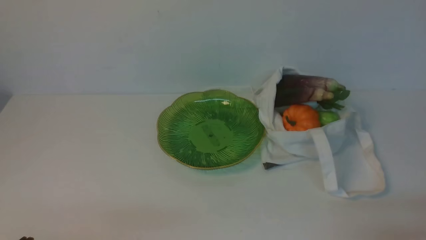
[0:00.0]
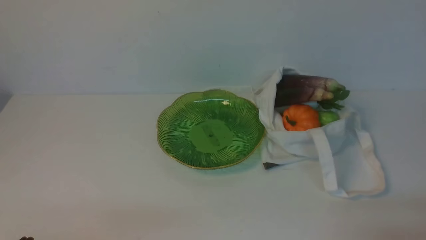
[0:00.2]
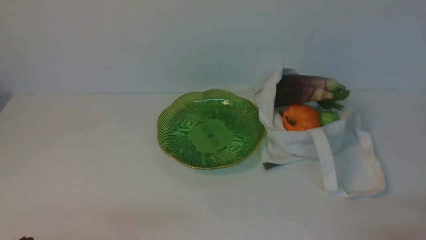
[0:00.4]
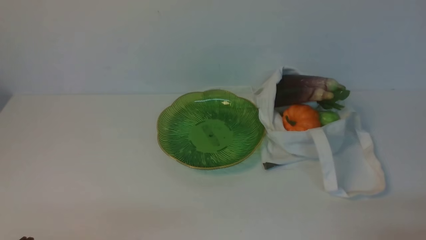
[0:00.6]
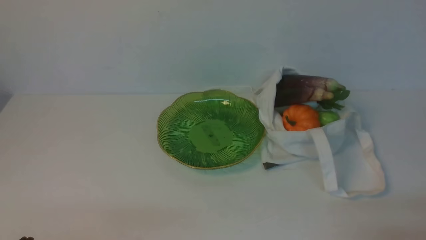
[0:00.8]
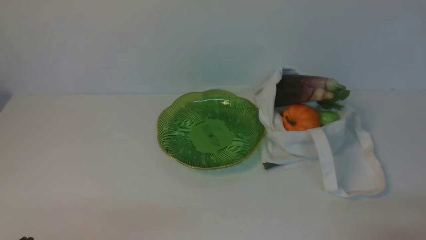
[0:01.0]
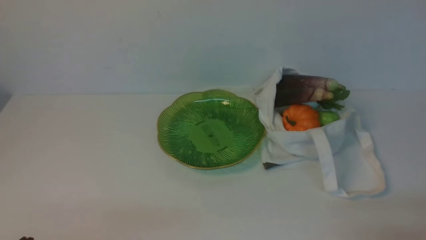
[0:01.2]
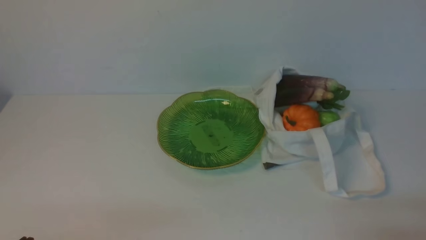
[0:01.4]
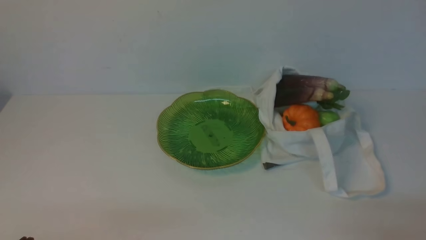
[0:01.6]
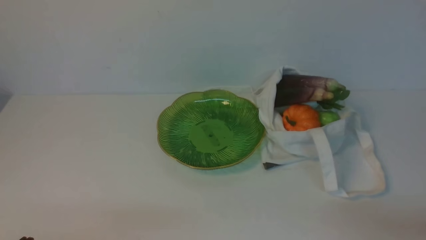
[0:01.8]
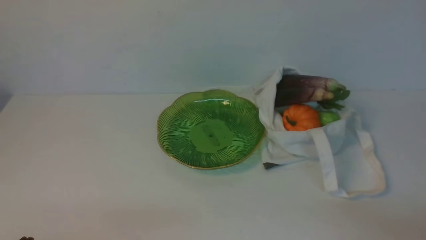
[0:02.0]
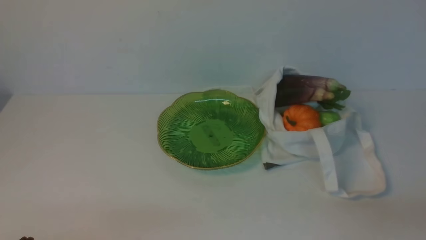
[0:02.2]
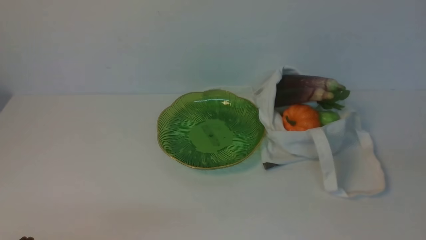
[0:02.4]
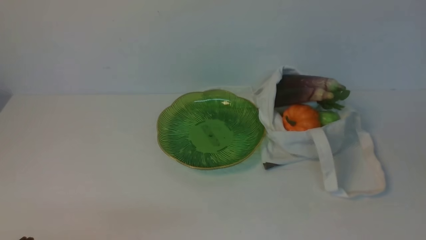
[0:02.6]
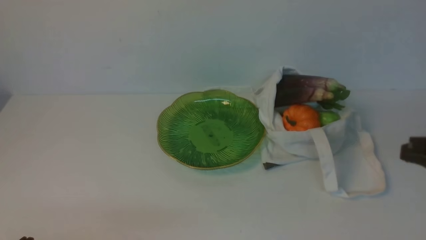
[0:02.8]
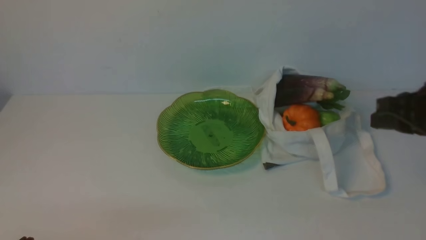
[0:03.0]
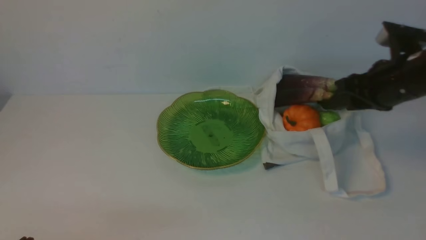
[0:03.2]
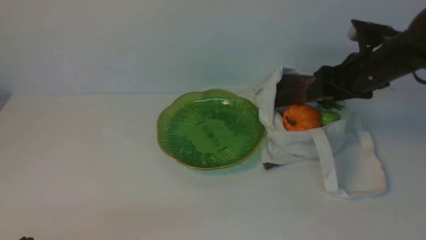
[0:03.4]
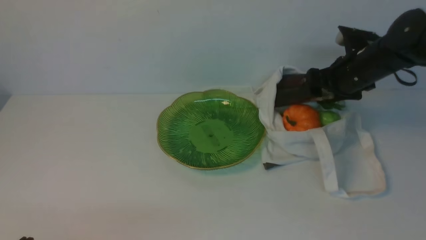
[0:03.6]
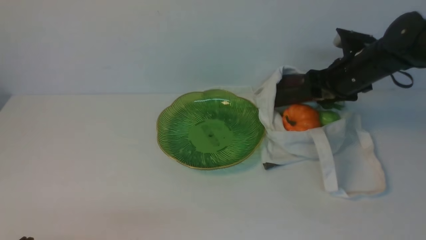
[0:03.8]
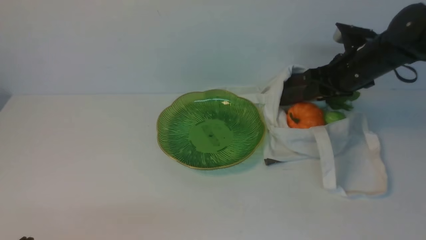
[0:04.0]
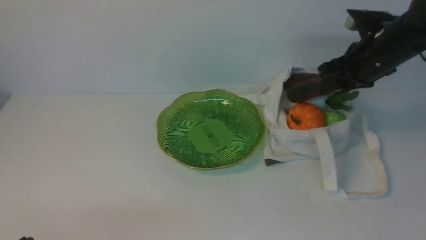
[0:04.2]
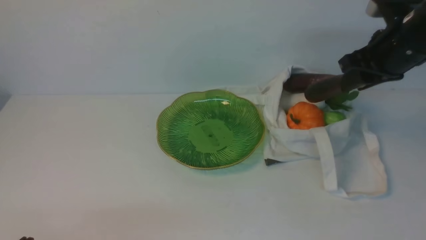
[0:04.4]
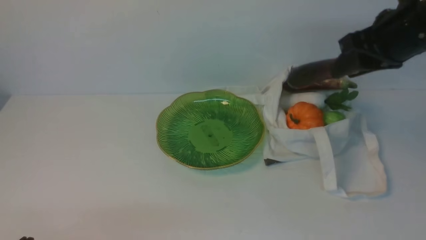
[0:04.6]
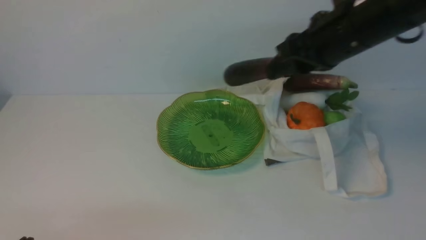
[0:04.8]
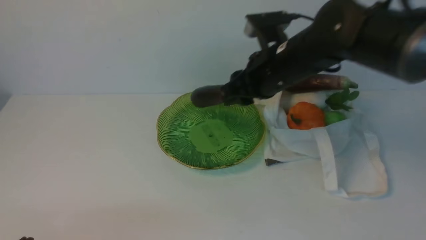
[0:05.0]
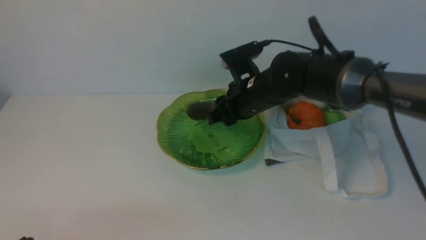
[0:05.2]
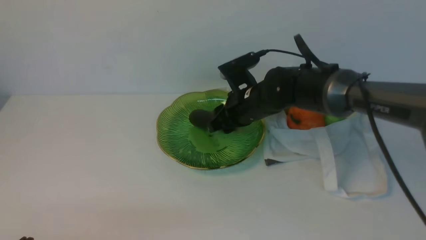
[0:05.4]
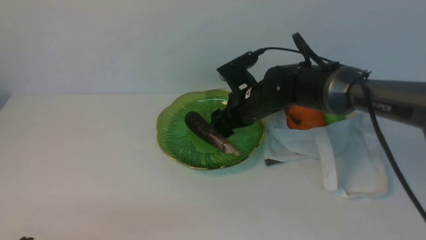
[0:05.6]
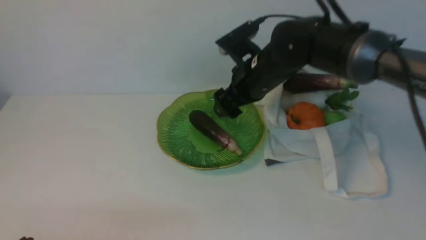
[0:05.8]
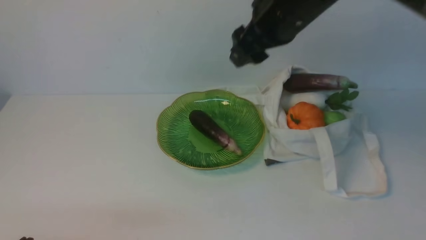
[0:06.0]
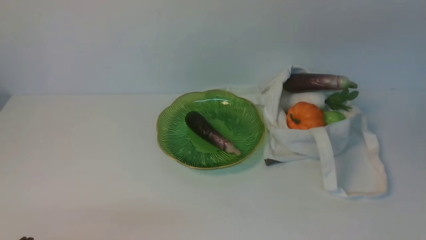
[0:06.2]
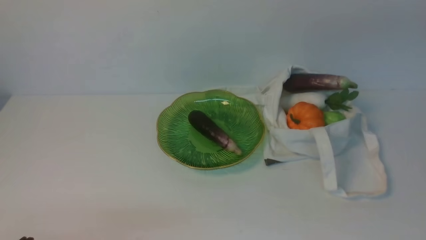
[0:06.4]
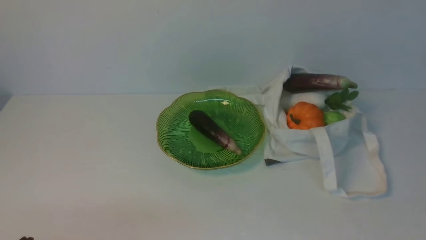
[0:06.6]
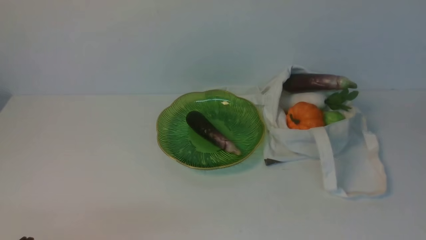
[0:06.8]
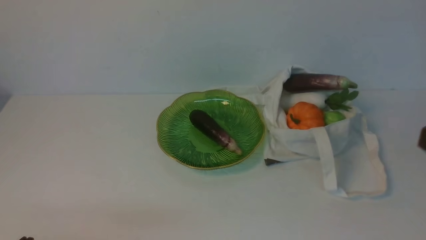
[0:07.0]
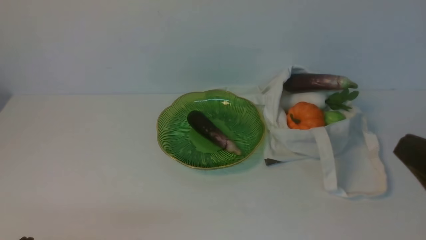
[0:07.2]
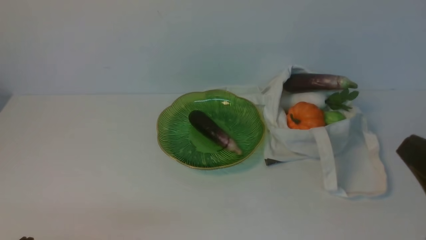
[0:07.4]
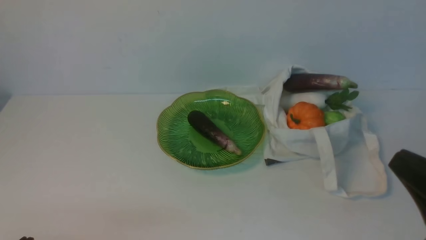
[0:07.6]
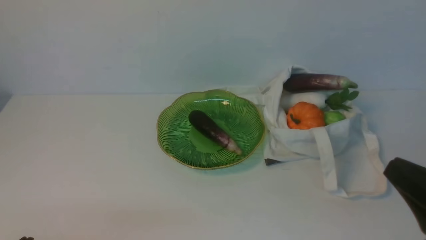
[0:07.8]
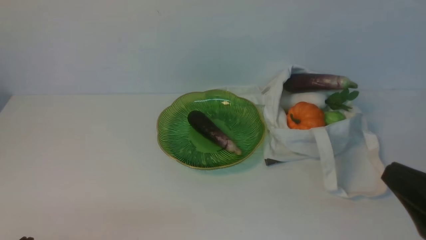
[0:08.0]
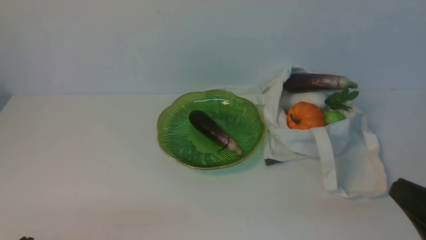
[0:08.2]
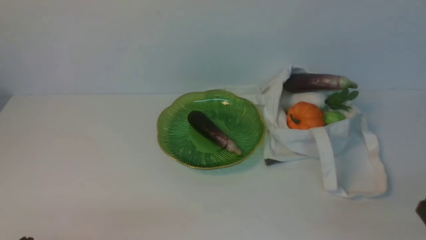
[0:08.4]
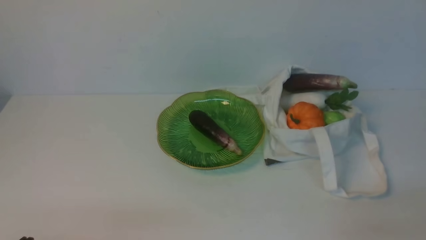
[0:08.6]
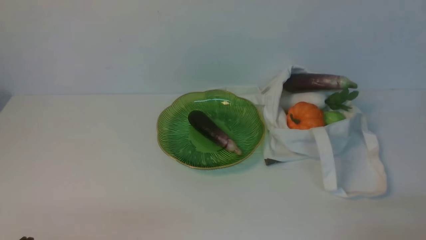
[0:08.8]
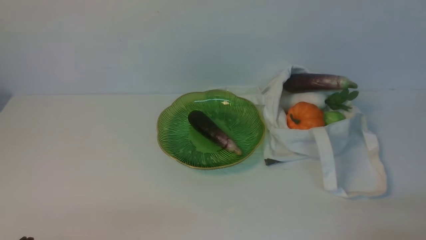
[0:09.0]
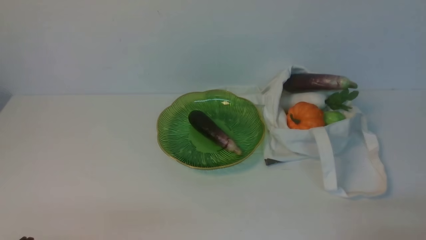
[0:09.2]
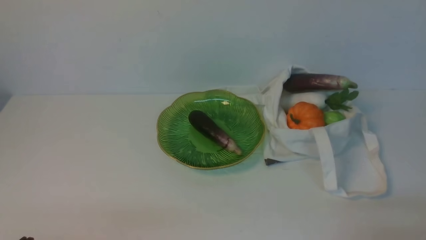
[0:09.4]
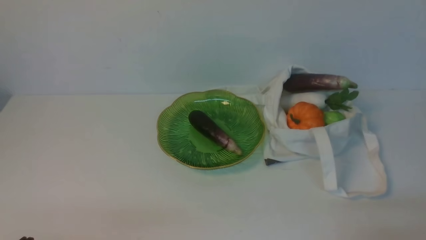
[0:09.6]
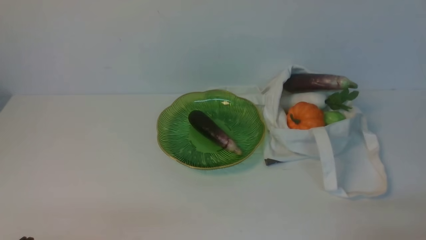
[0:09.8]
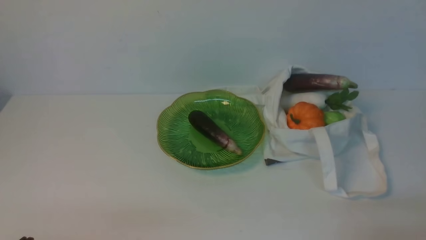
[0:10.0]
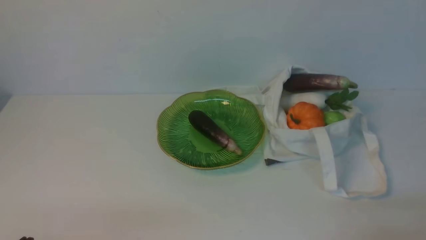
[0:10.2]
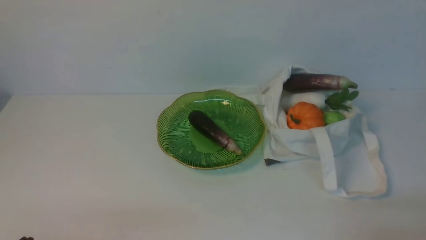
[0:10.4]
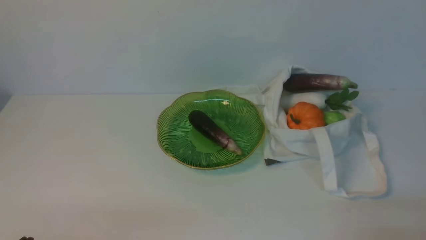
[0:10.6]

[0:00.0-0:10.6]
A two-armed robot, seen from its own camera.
Task of the whole recording: take vegetables from cloth bag on white table place on plate.
Step, 0.0 to 3.8 s: Grasp the eggplant with right gripper.
Step, 4.0 to 5.6 s: Place the eggplant on the plate with right gripper.
1.6 to 3.0 s: The right gripper travels forward and upward by some 25 cm.
3.0 to 4.6 s: The right gripper shifts some 10 cm forward and to the left, and opens, then closes once more.
4.6 to 6.0 s: The right gripper is displaced to the left by about 10 cm, and reaches some 15 cm downward, then returns.
6.0 to 7.6 s: The right gripper is displaced backward, to the right and downward by about 30 cm, and closes up.
7.6 to 9.0 s: The right gripper moves downward, some 10 cm.
9.0 to 10.6 s: The two grippers keep their place.

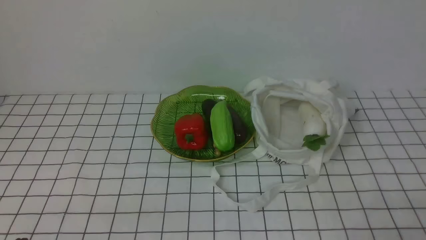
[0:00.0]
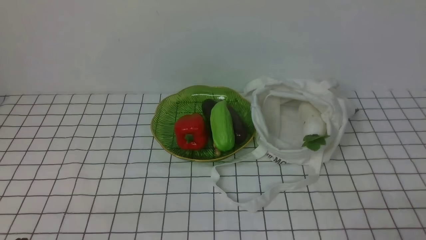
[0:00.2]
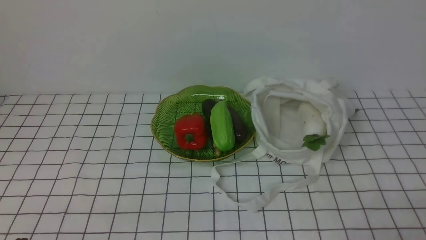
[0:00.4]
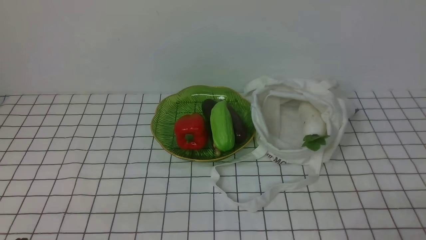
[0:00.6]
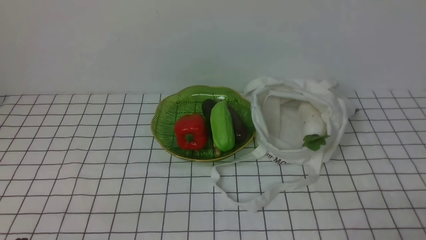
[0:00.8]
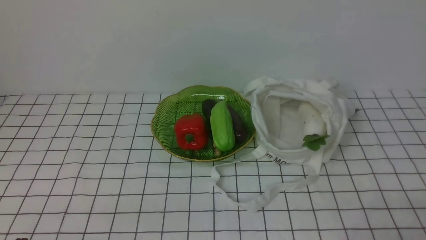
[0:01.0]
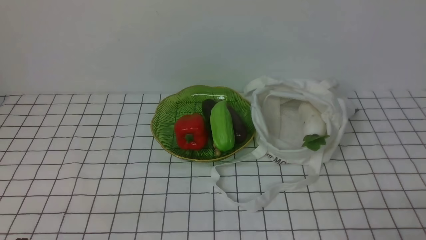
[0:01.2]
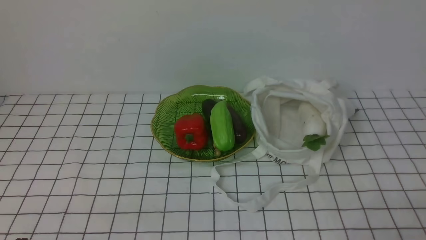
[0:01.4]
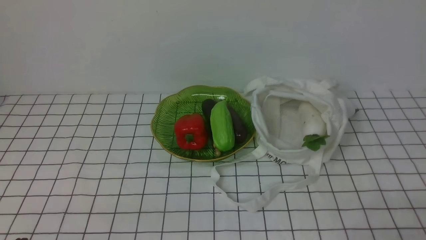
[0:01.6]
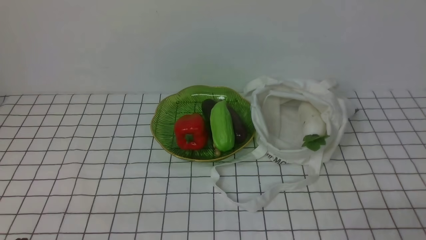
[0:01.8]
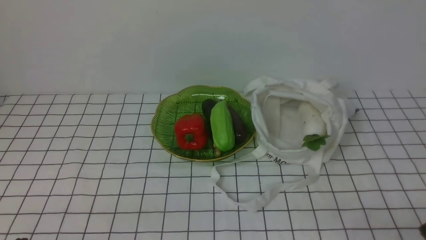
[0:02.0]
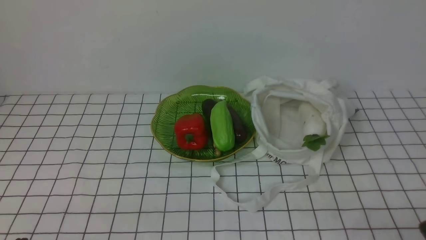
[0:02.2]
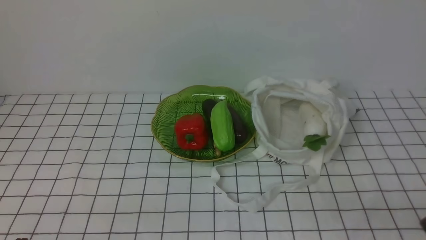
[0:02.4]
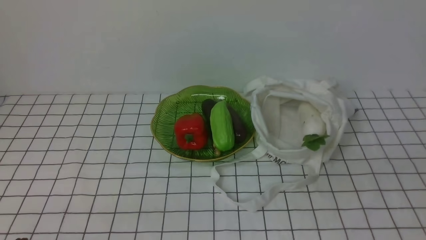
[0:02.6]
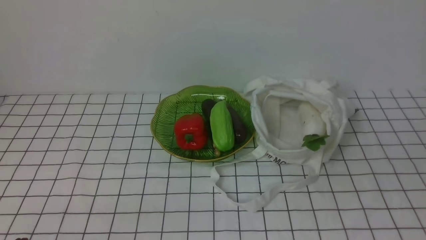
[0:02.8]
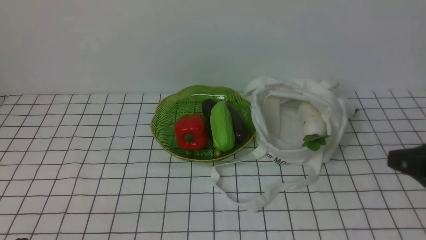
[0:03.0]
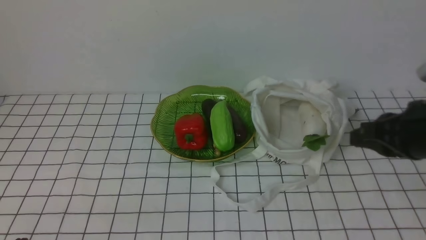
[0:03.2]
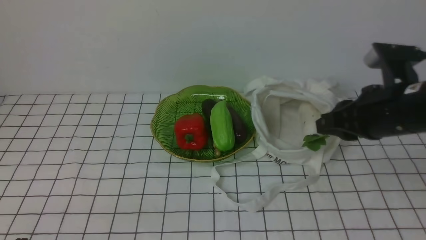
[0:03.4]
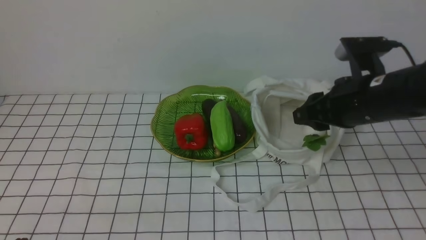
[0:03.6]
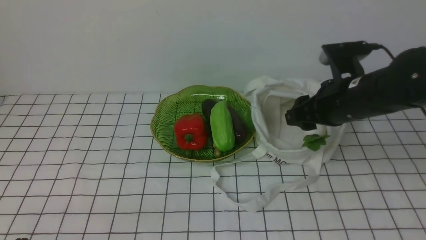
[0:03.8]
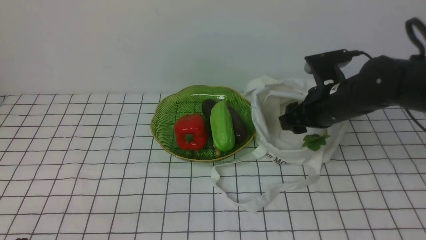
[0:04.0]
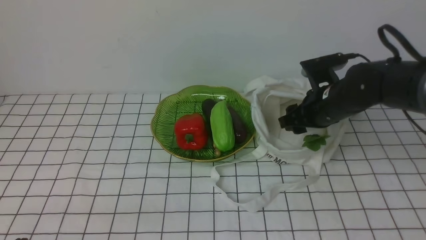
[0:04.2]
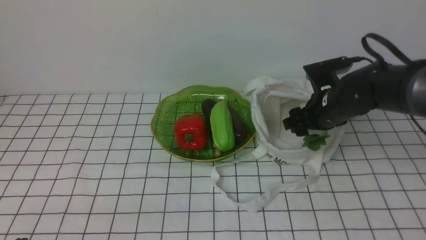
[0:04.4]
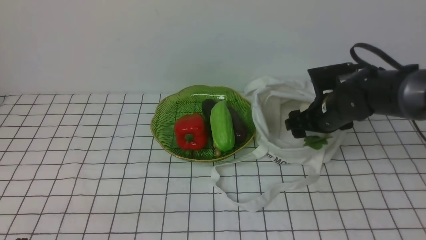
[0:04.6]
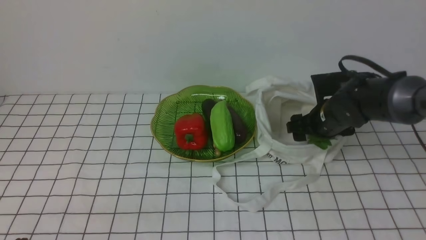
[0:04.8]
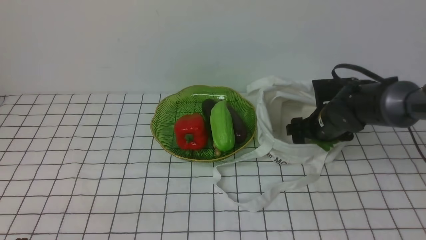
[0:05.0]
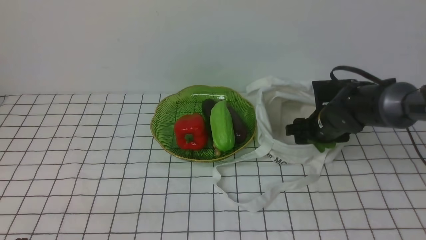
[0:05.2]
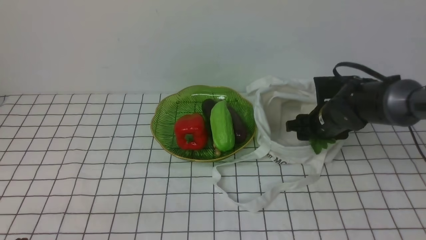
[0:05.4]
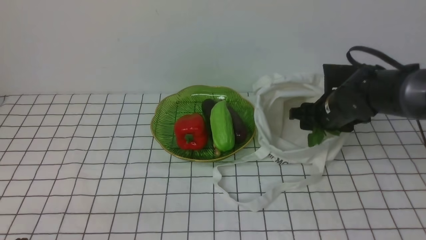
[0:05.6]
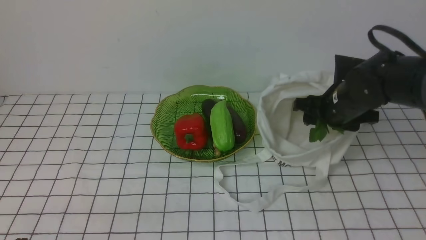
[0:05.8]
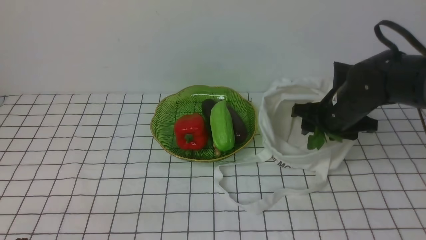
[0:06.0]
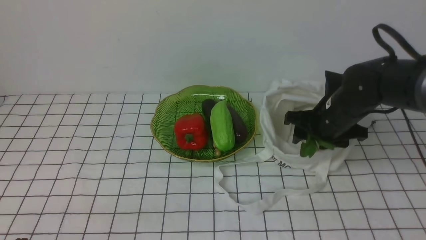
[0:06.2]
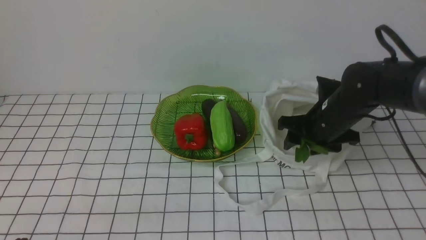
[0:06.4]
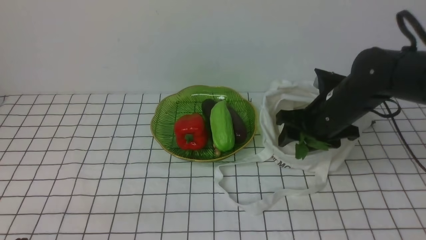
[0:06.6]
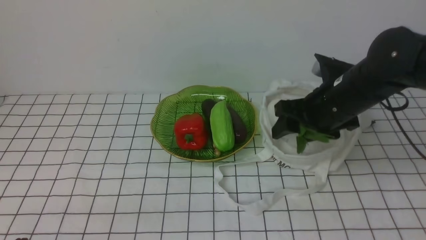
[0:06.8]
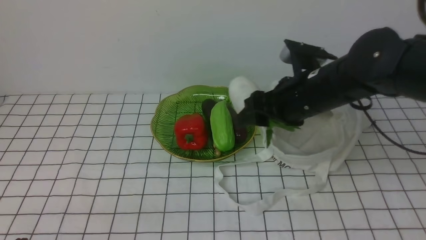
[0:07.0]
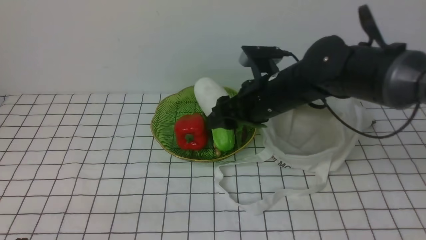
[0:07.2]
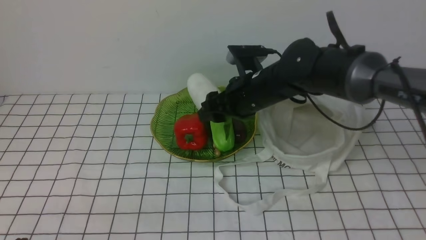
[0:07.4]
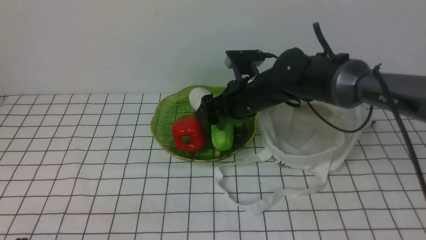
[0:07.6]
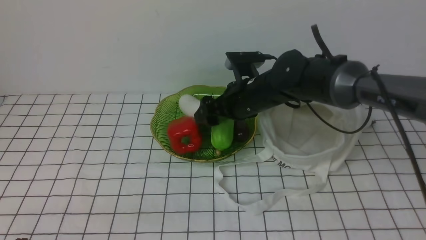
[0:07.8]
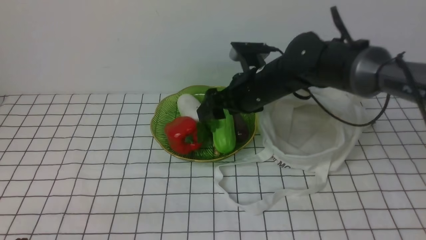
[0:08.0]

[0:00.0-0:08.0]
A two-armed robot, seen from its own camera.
Task of the whole recording: take vegetables from bag on white checkered tablecloth place on plate.
Step, 0.0 to 5.0 s: Grasp the radish with right gripper.
Step, 5.4 to 8.0 s: Place the radish on the plate with right gripper.
1.6 to 3.2 s: The right gripper travels forward and upward by some 20 cm.
3.2 to 4.8 s: The right gripper is displaced forward and downward by roughly 25 cm, and opens.
4.8 to 6.4 s: The right gripper moves approximately 5 cm.
6.4 to 8.0 s: The right gripper shifts roughly 10 cm to the left and upward.
